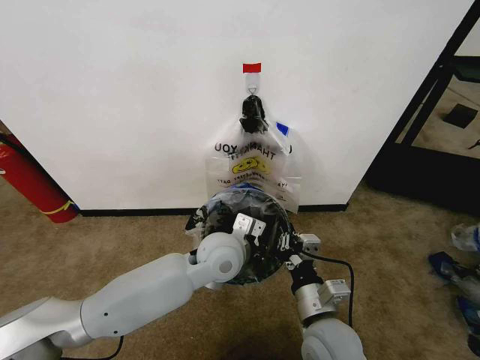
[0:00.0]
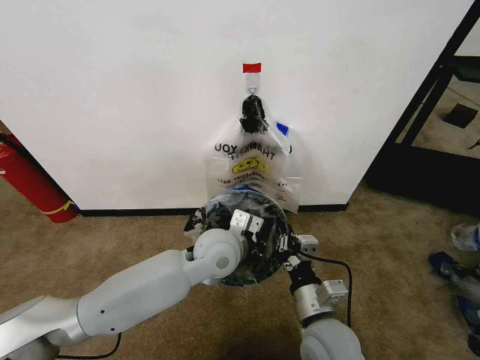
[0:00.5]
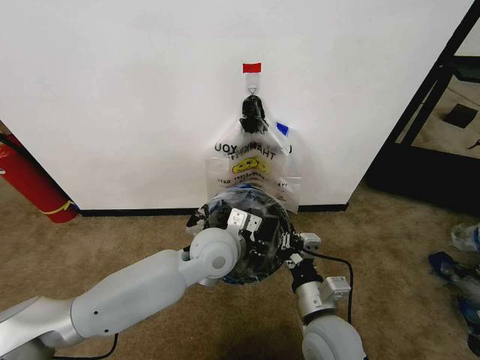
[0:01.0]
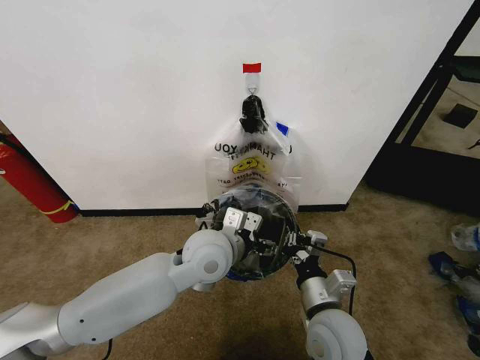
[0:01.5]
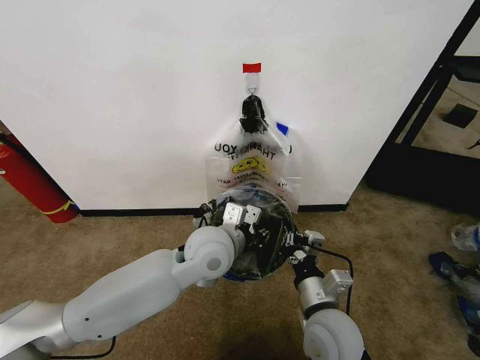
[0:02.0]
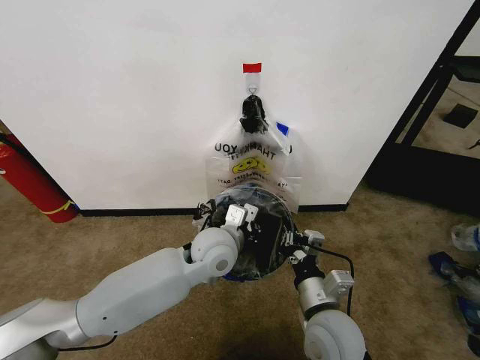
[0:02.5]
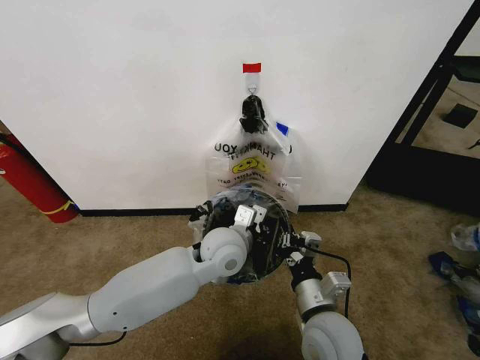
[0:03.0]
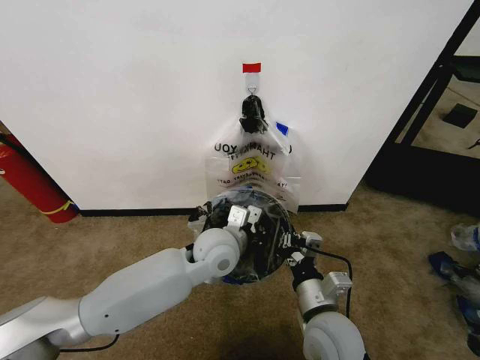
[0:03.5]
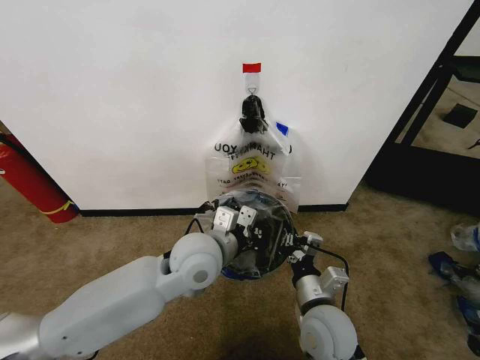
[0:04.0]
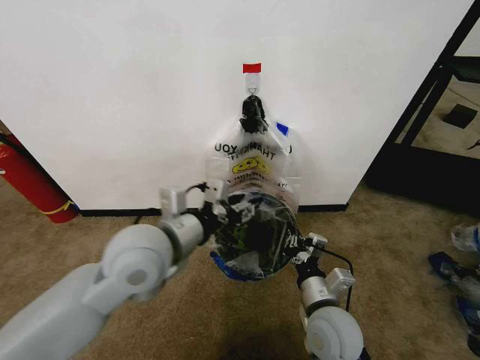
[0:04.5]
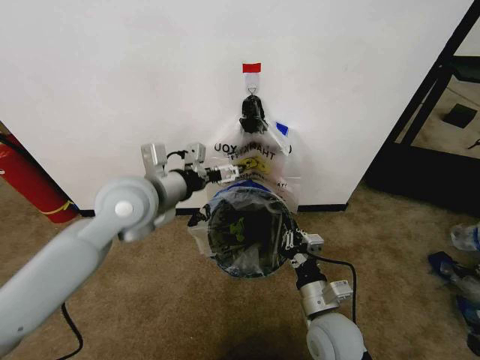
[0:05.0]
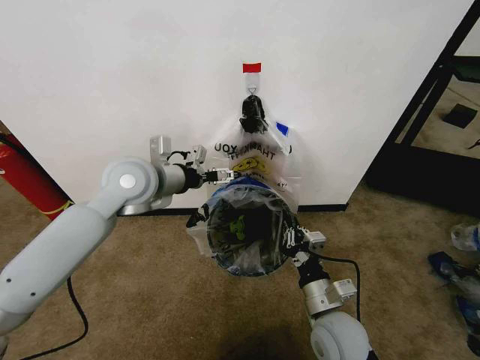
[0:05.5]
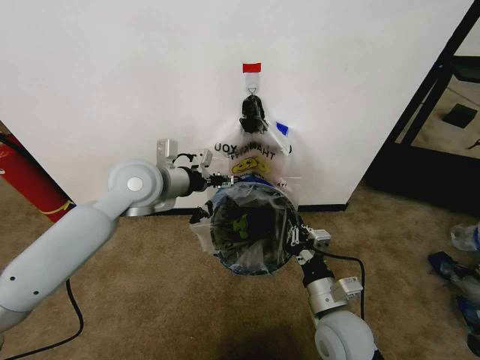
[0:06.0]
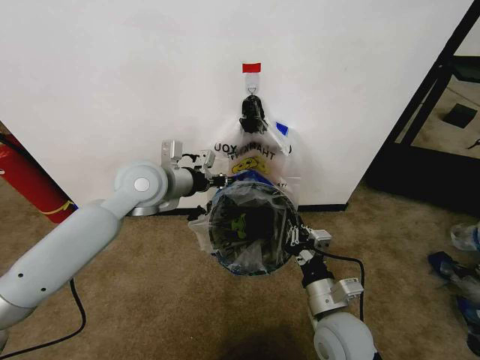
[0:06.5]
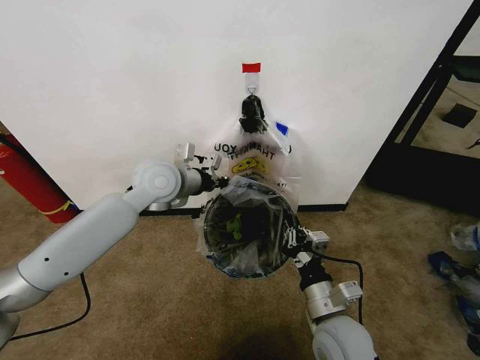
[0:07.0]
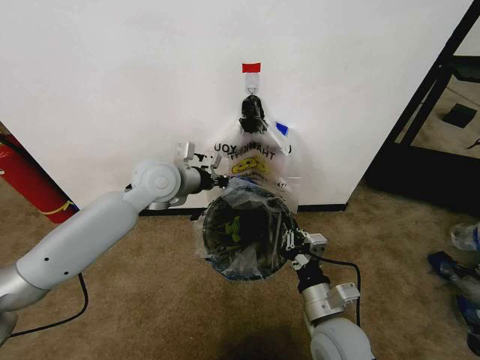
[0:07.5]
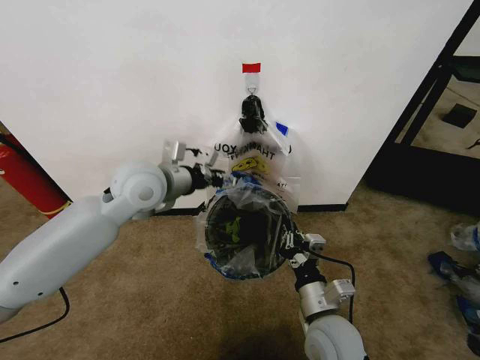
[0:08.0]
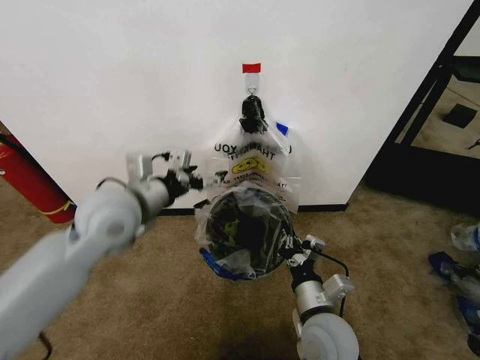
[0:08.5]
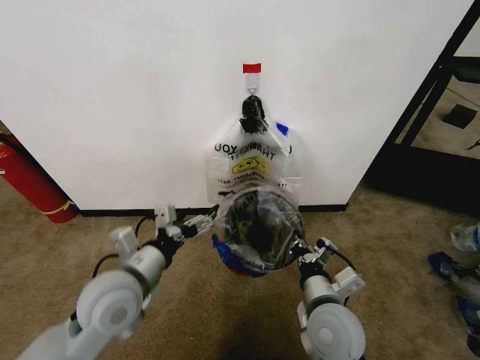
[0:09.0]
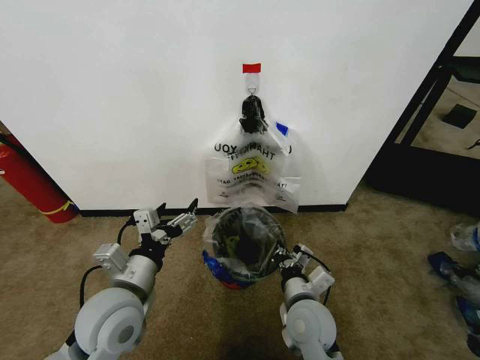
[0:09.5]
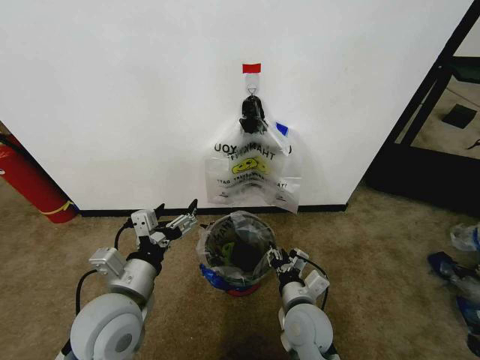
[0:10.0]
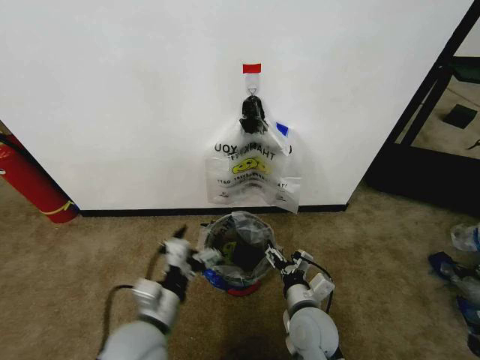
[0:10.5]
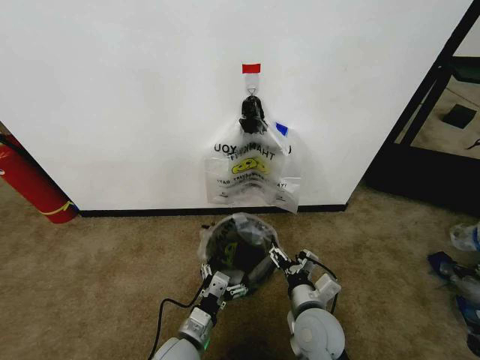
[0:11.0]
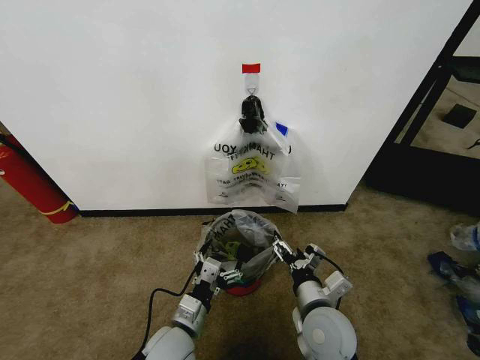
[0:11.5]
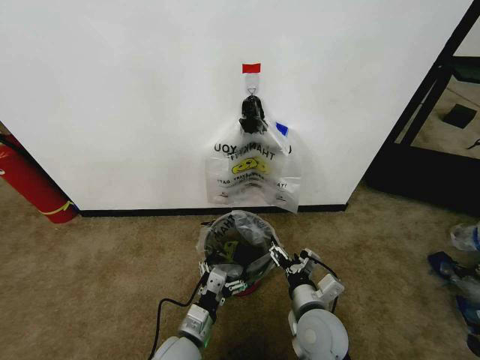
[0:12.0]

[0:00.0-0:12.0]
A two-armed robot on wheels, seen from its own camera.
Task of the whole recording: Pick up the garbage bag from the wall and place it over the trash bin.
0:00.0 to 0:02.0: The left gripper opens, then closes again.
0:02.0 to 0:04.0: The grippers move only a little.
0:04.0 to 0:06.0: The left gripper heads to the left, upward and forward, covering roughly 20 cm, and opens.
0:06.0 to 0:08.0: The left gripper closes, then reopens.
0:08.0 to 0:10.0: The left gripper goes about 25 cm backward and downward; the right gripper shifts by approximately 5 cm, and opens.
0:10.0 to 0:12.0: The right gripper opens; the left gripper moves downward and to the right, about 20 cm.

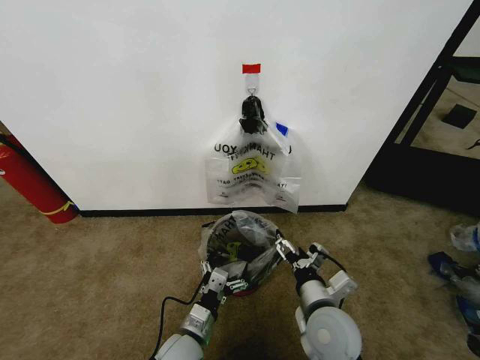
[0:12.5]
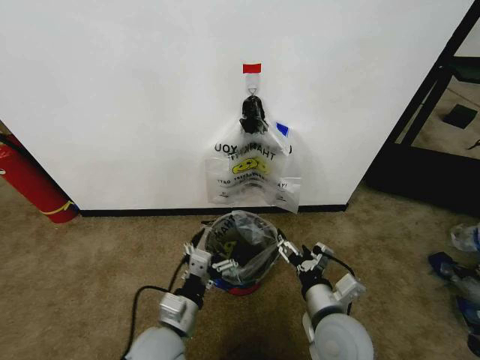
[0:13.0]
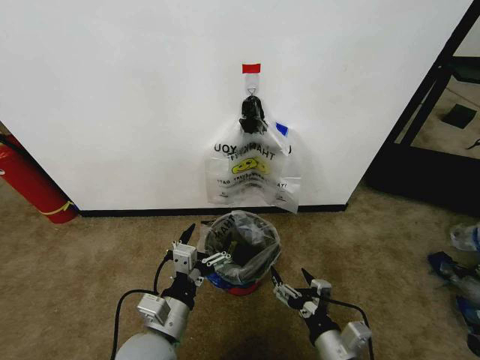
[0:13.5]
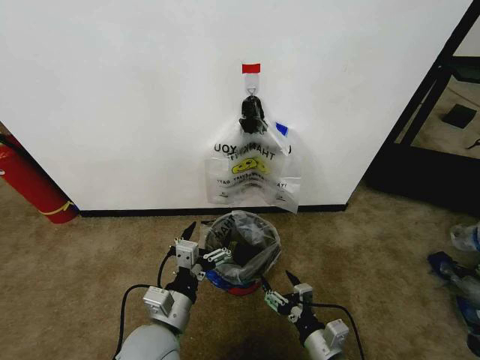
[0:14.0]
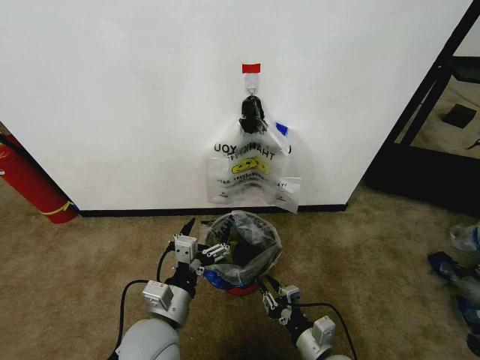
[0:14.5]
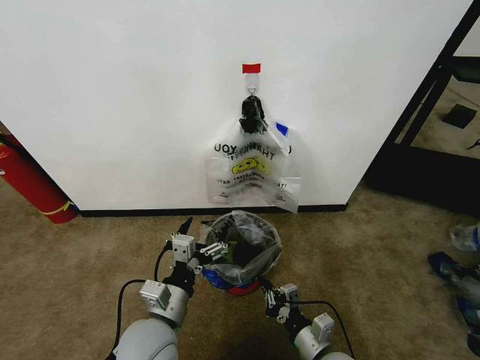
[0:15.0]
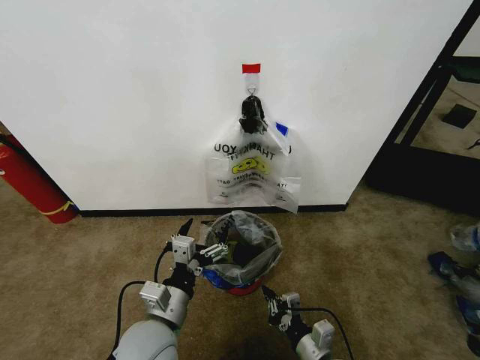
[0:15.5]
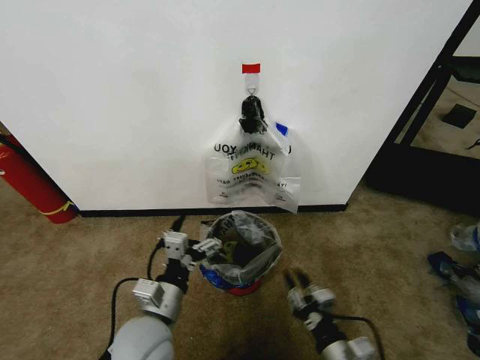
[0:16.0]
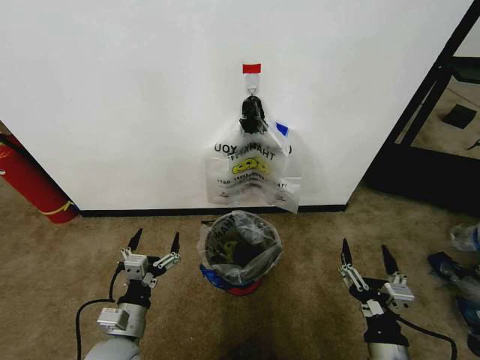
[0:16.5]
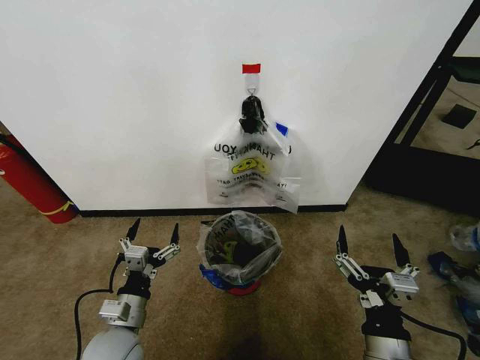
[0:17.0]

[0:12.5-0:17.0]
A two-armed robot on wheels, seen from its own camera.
Task of the whole recording: Pick up the garbage bag from the wall and place it over the trash bin.
0:12.5 to 0:14.5: The left gripper travels upward by some 15 cm, while the right gripper is displaced downward and backward by roughly 10 cm, and closes its fingers.
0:14.5 to 0:17.0: The right gripper is displaced upward and backward by approximately 15 cm, and opens up. The left gripper heads to the left and downward, covering roughly 10 cm.

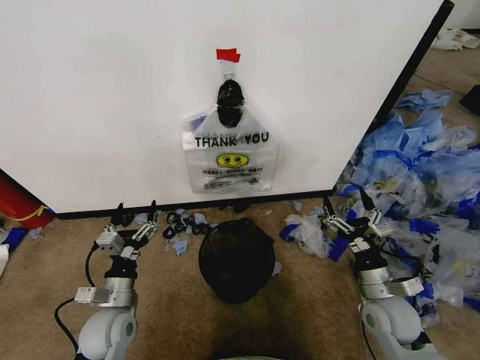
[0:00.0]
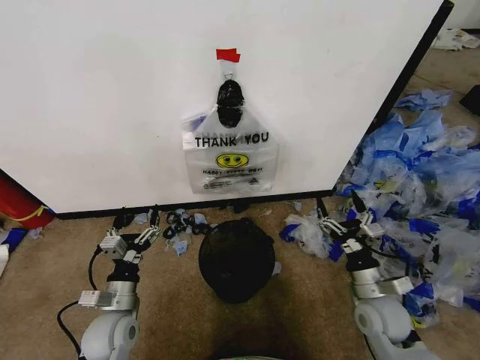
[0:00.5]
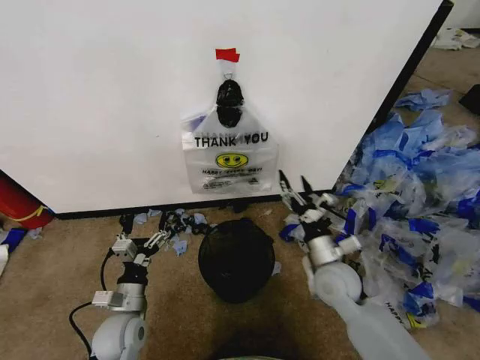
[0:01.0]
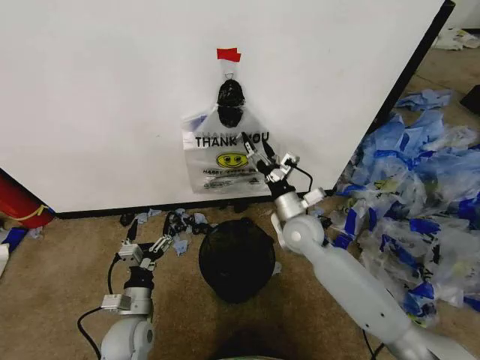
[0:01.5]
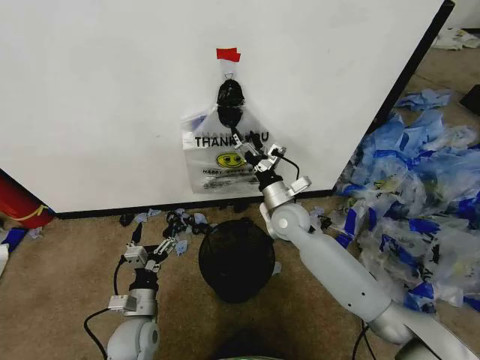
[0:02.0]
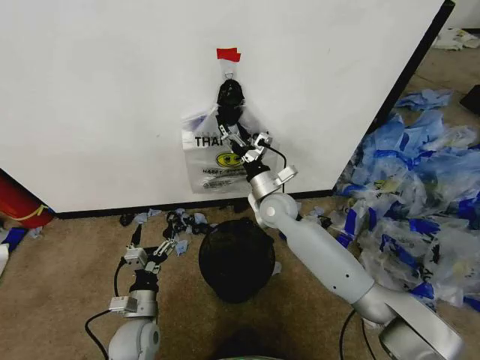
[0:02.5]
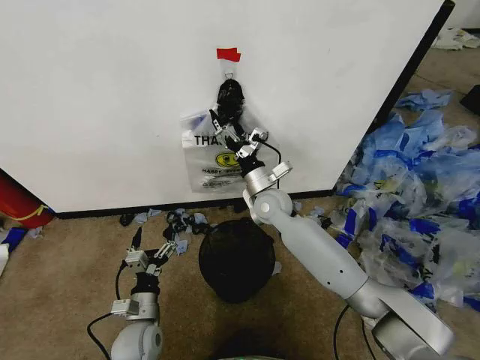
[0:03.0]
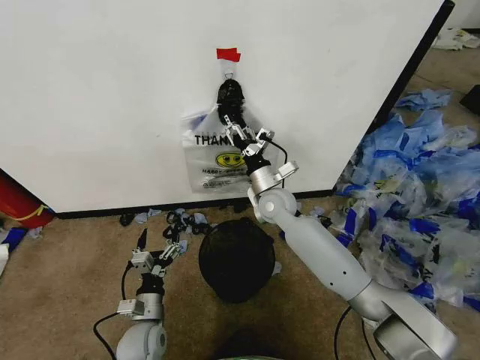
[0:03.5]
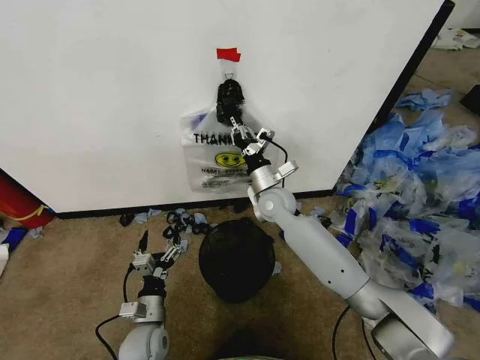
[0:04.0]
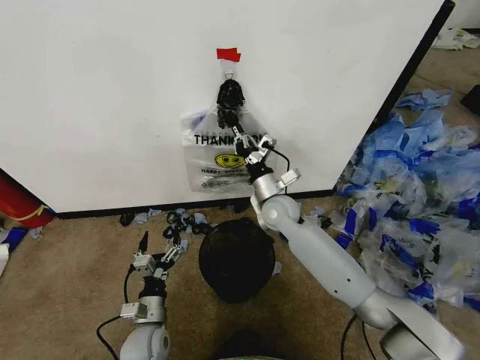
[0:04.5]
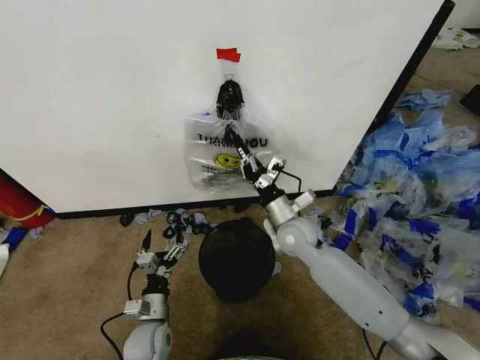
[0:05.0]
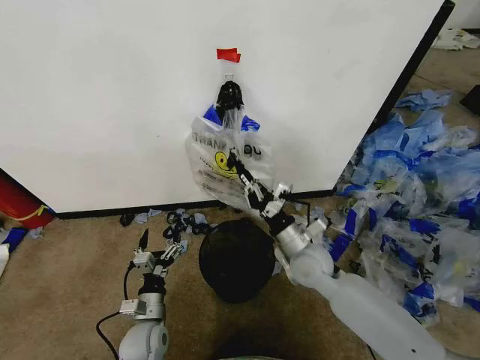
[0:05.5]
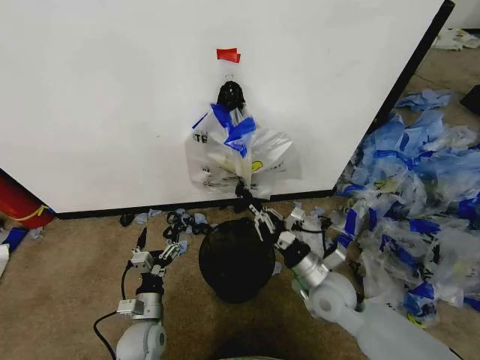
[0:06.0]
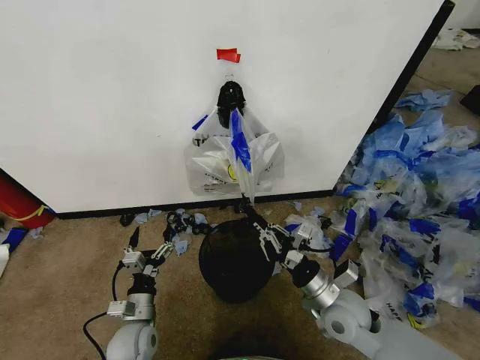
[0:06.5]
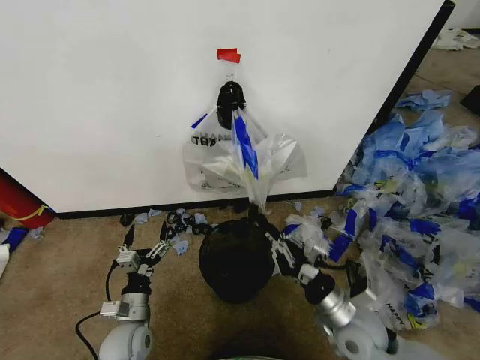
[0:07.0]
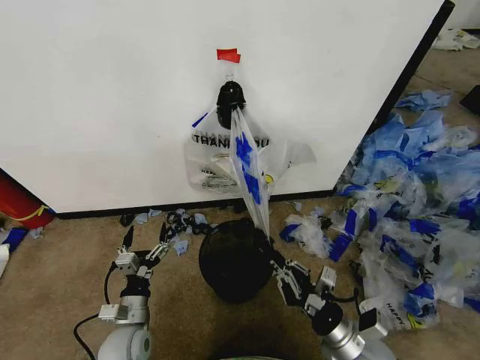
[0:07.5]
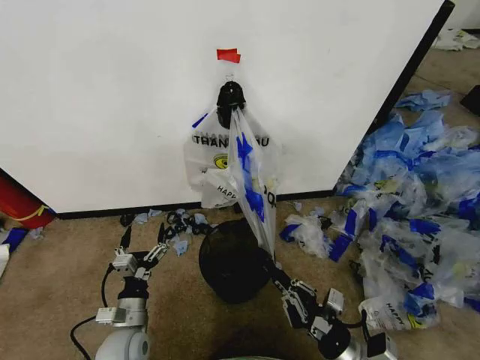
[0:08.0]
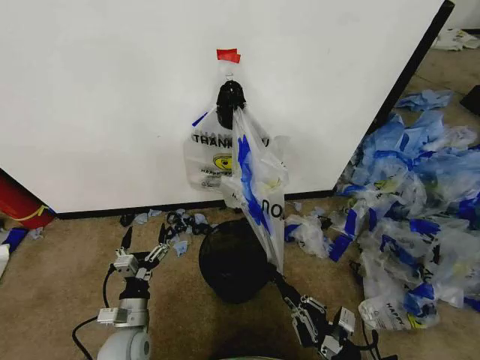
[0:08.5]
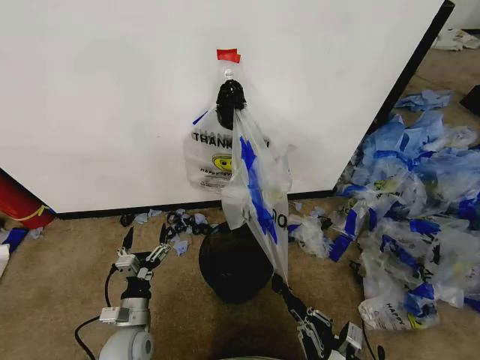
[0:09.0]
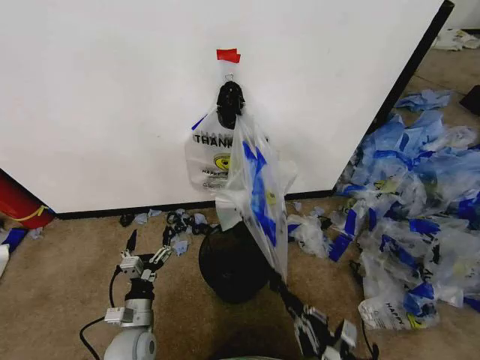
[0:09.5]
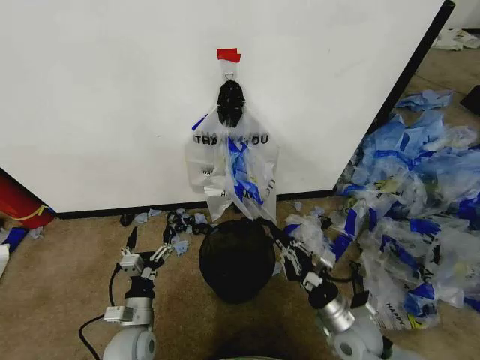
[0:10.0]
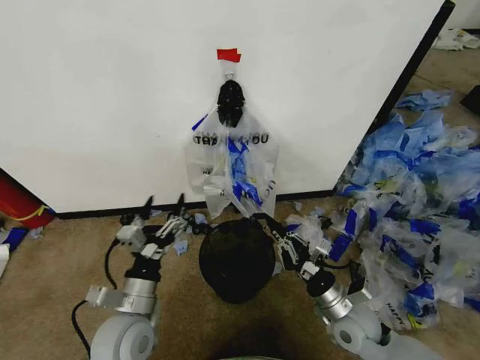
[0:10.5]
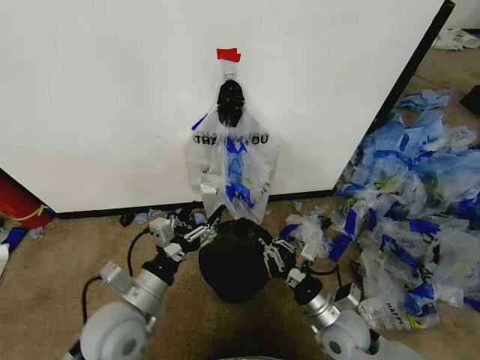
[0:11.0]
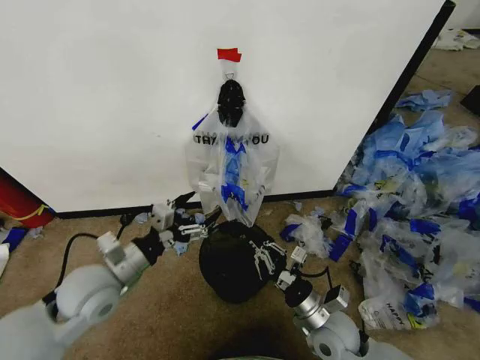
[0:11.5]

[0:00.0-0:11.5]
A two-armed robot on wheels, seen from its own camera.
Task of the whole recording: Pick up the garbage bag from the wall and place it over the trash bin.
0:02.0 to 0:04.0: The right gripper moves roughly 5 cm, and closes its fingers.
0:04.0 to 0:06.0: The right gripper shifts roughly 20 cm backward and to the right.
0:06.0 to 0:07.5: The right gripper heads backward, covering approximately 10 cm.
0:07.5 to 0:09.5: The right gripper moves backward and downward, about 10 cm.
0:09.5 to 0:11.5: The right gripper shifts about 15 cm forward, to the left and upward; the left gripper travels upward by about 20 cm.
